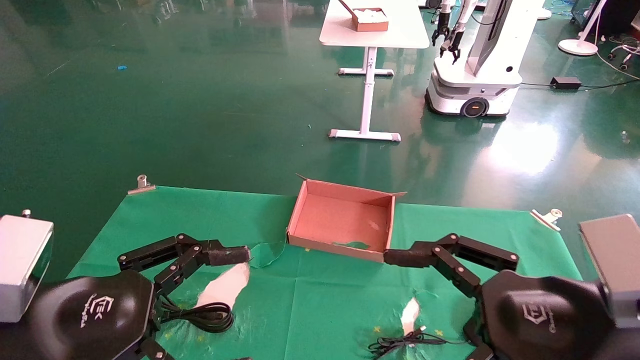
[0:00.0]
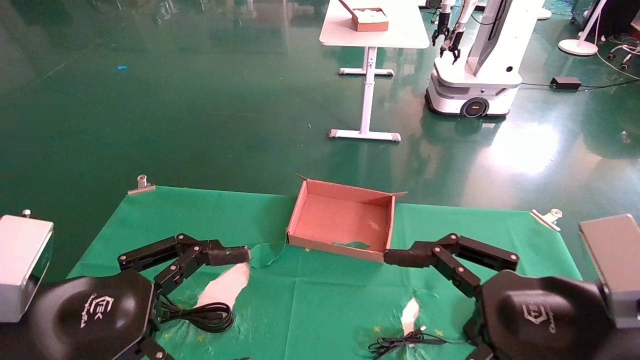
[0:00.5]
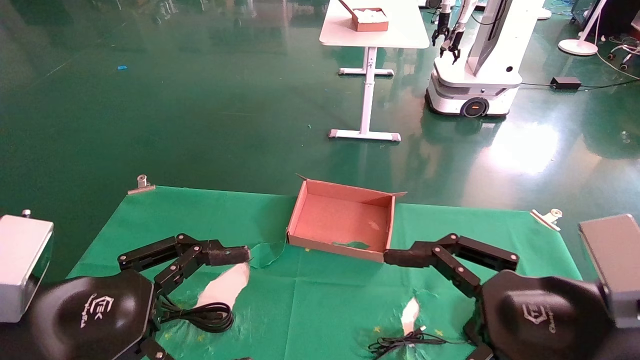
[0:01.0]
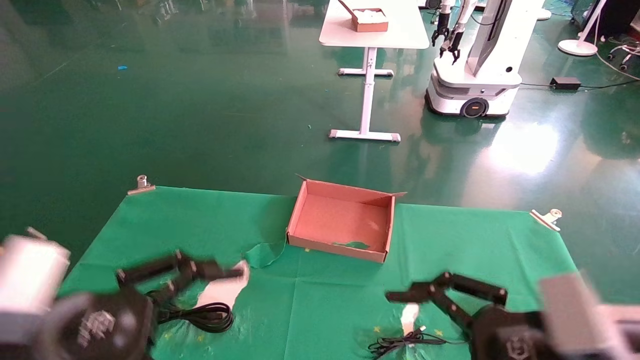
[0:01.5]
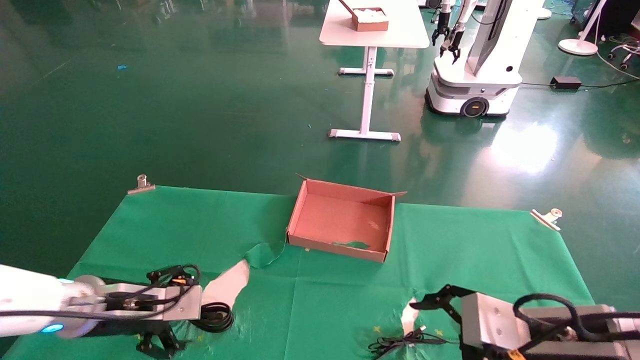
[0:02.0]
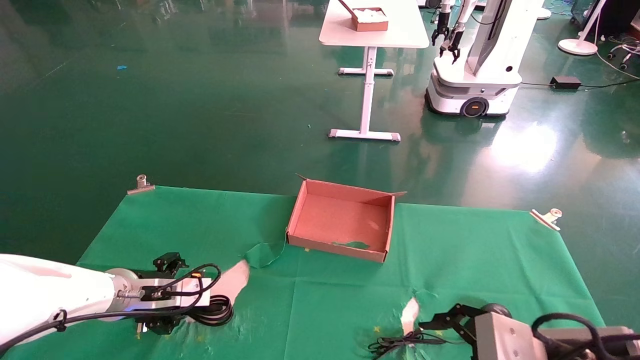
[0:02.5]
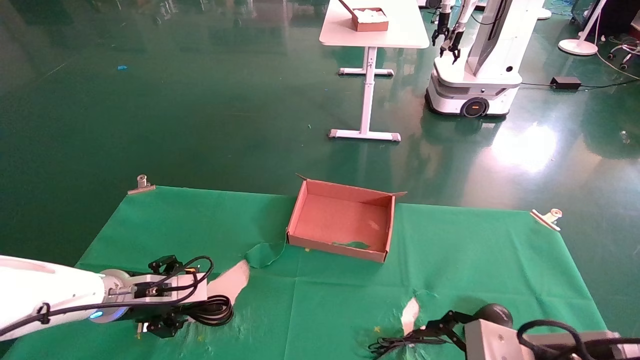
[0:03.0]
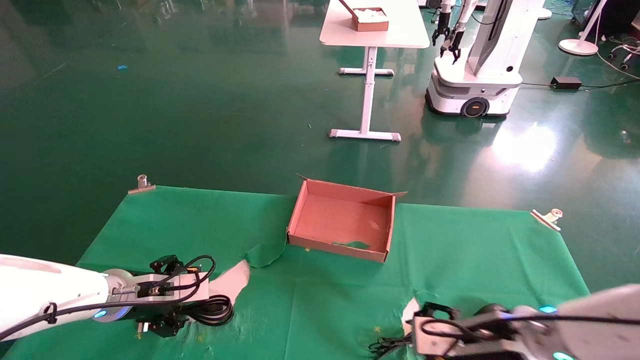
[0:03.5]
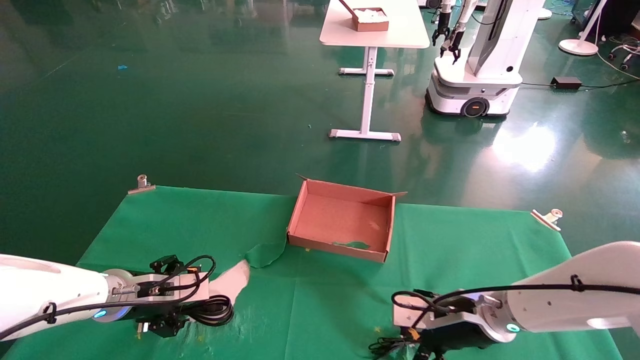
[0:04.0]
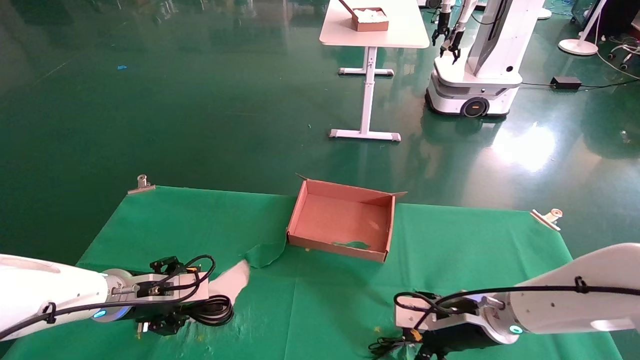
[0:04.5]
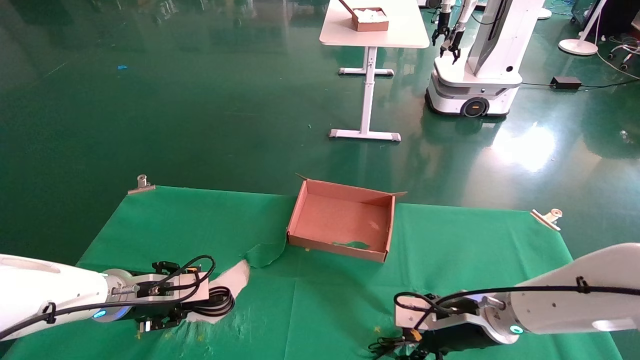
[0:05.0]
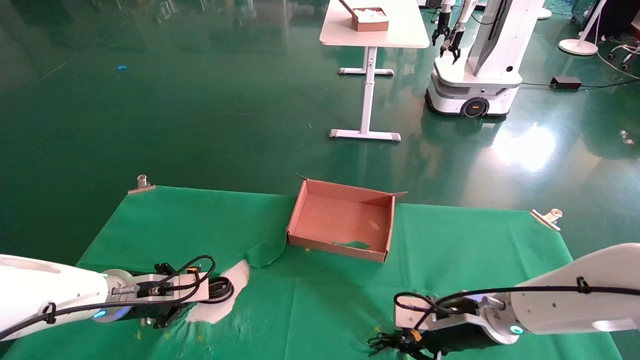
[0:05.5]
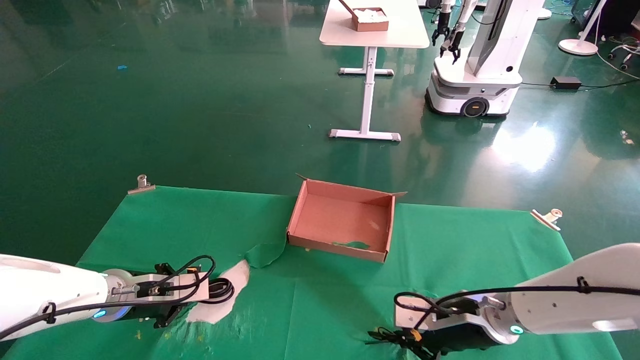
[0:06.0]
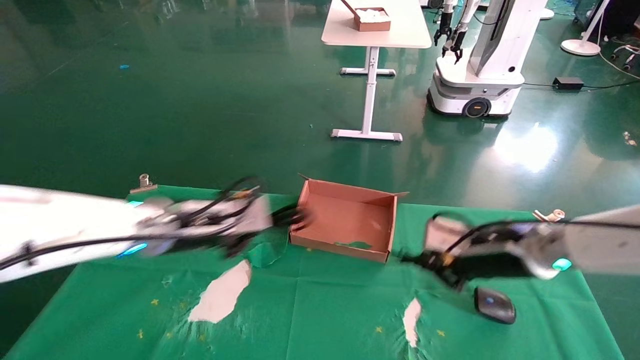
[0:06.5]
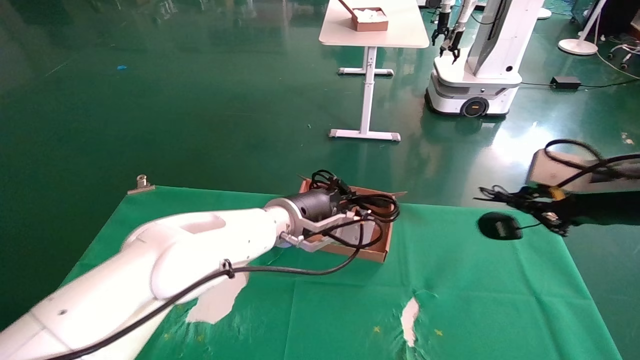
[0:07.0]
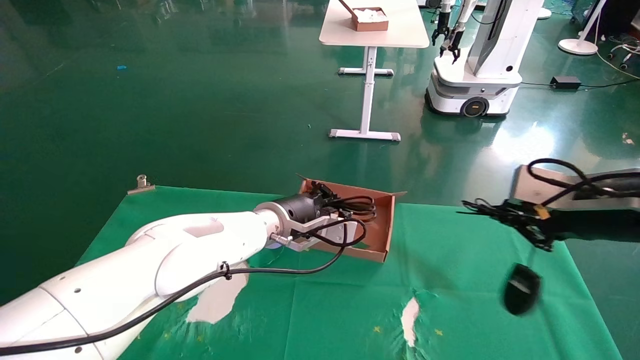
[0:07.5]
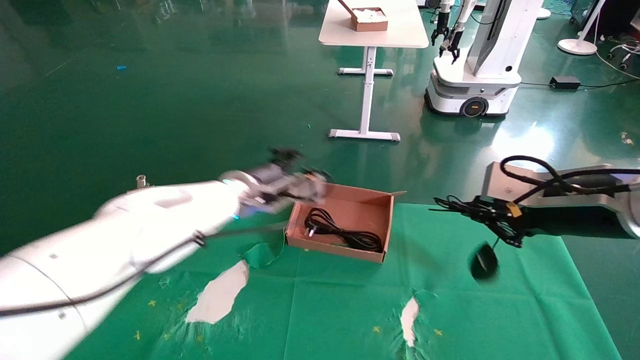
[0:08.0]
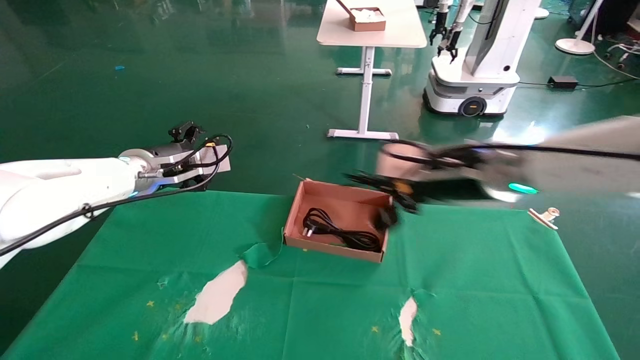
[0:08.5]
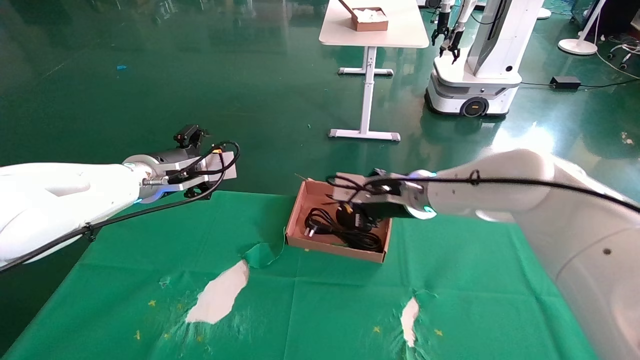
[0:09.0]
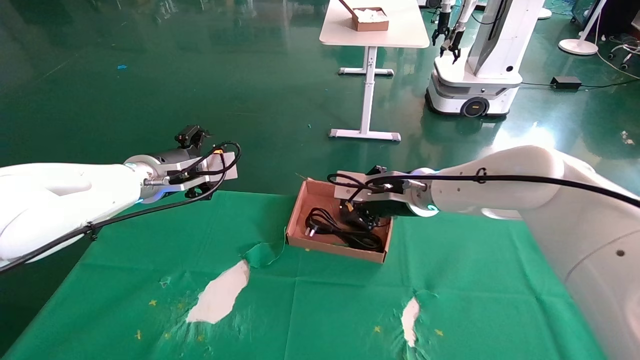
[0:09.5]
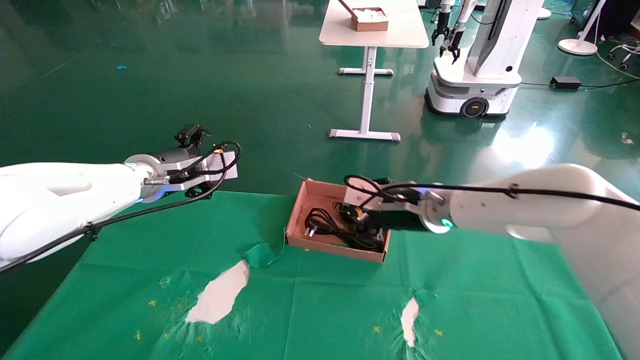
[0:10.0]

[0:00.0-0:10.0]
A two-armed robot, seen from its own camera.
Step, 0:02.0 to 0:05.5: Grab and lift both the mouse and power cord from the accessory packaging area at the same time.
0:00.0 to 0:02.0: The left gripper travels forward and downward by some 20 cm. The right gripper travels downward and forward by some 10 cm.
0:02.0 to 0:04.0: The right gripper goes about 15 cm forward and downward. Meanwhile the left gripper goes approximately 5 cm forward.
0:04.0 to 0:06.0: The left gripper closes its fingers. Meanwhile the right gripper closes.
0:06.0 to 0:08.0: The left gripper heads to the right, upward and forward, covering approximately 20 cm, and opens; the right gripper shifts some 20 cm upward and to the right.
0:08.0 to 0:10.0: The right gripper goes roughly 20 cm to the left and forward, and opens; the left gripper is displaced to the left by some 10 cm, and opens up.

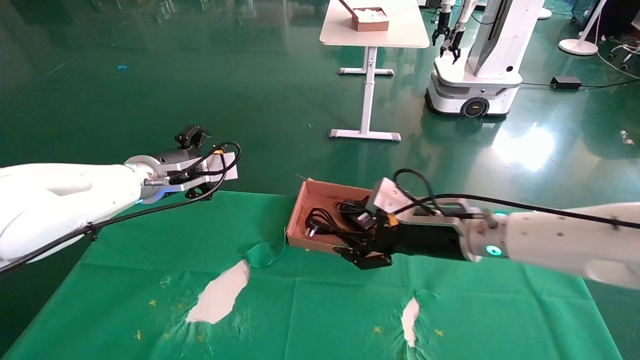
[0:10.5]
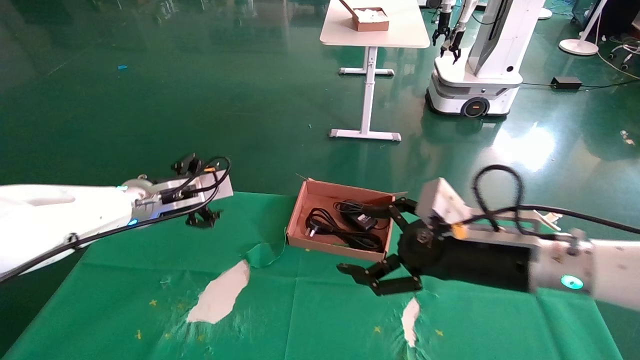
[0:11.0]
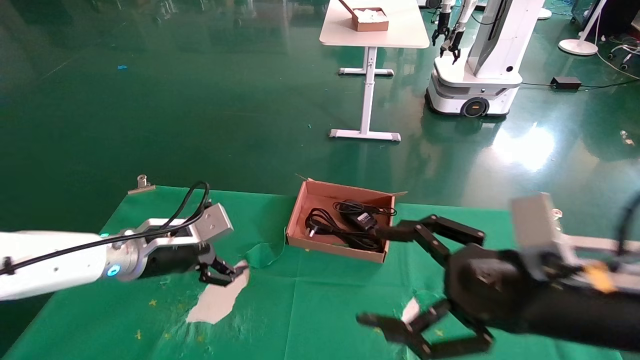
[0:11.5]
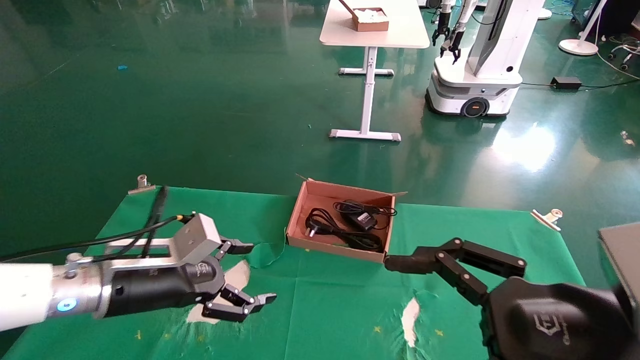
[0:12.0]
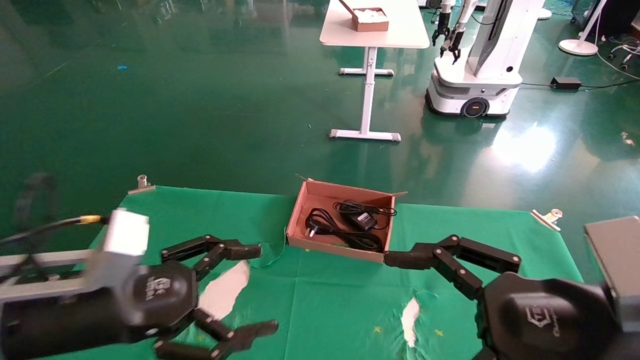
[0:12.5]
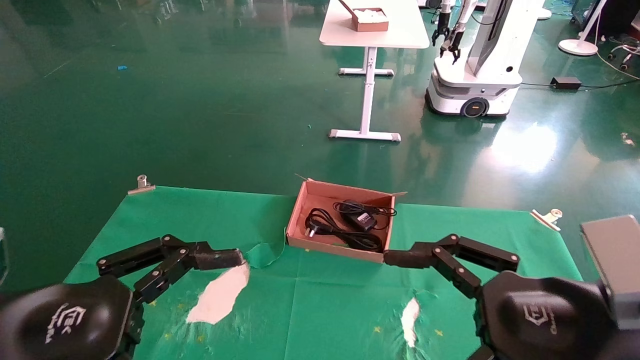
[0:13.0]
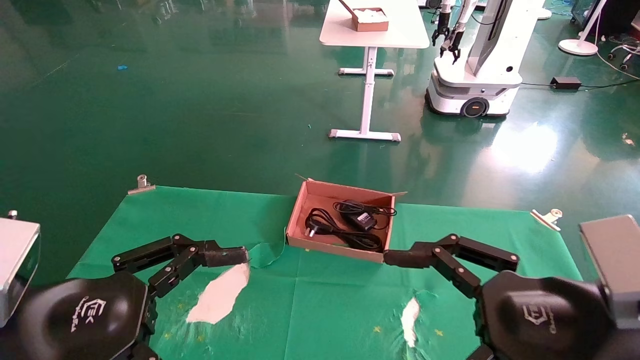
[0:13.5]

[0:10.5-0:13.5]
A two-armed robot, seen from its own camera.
0:10.5 to 0:12.0: The right gripper moves backward, some 20 cm. Meanwhile the left gripper moves backward and downward, roughly 15 cm.
0:12.0 to 0:13.5: The left gripper heads backward, covering about 15 cm.

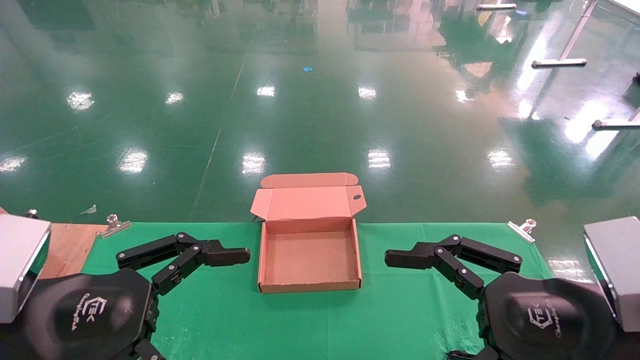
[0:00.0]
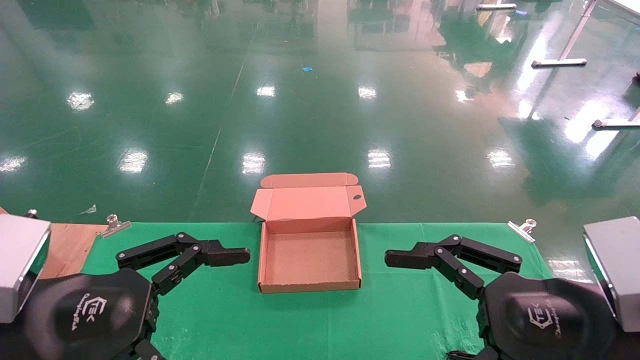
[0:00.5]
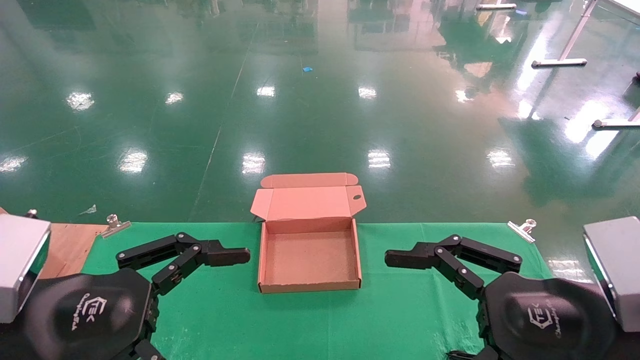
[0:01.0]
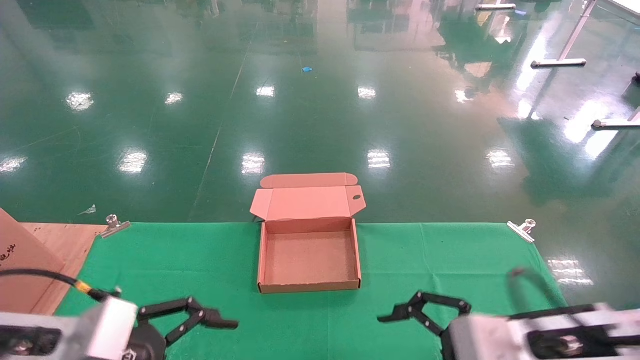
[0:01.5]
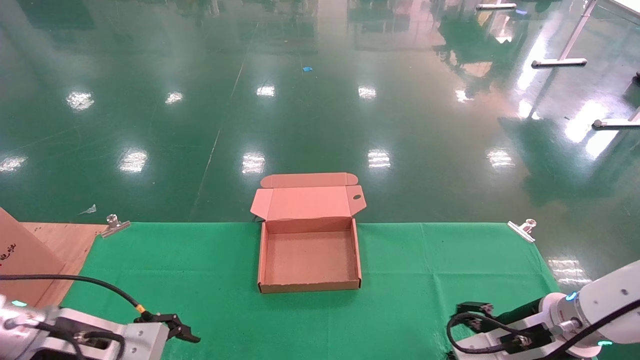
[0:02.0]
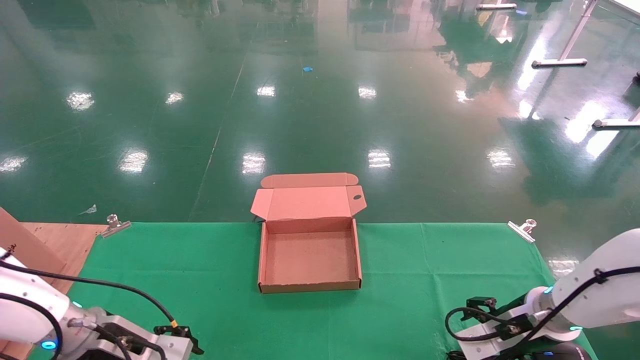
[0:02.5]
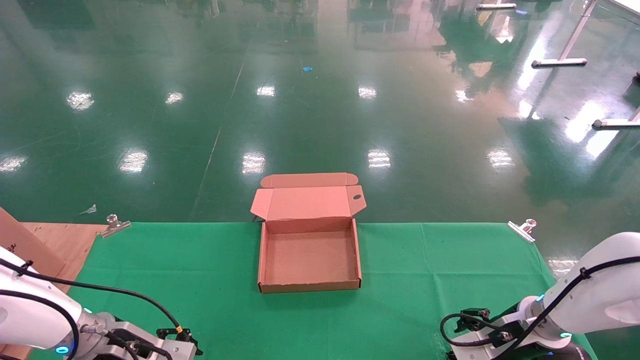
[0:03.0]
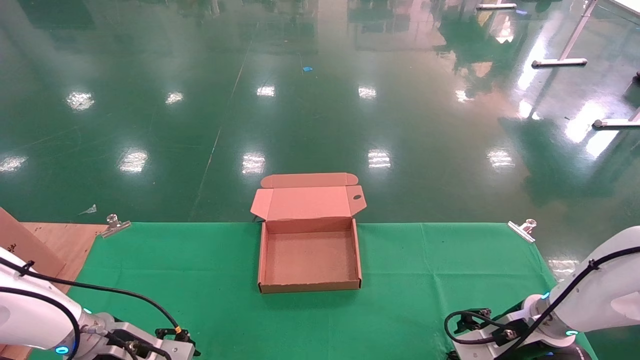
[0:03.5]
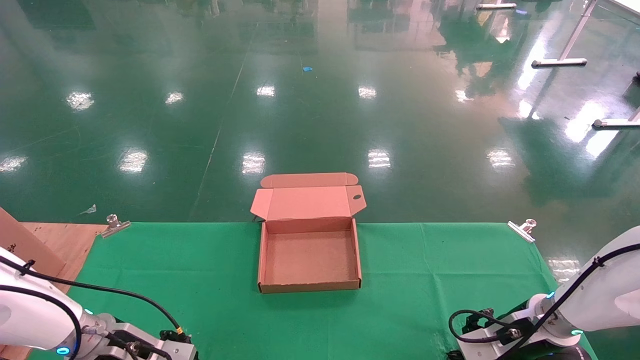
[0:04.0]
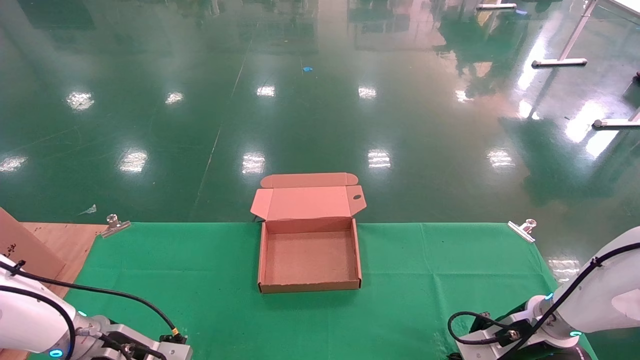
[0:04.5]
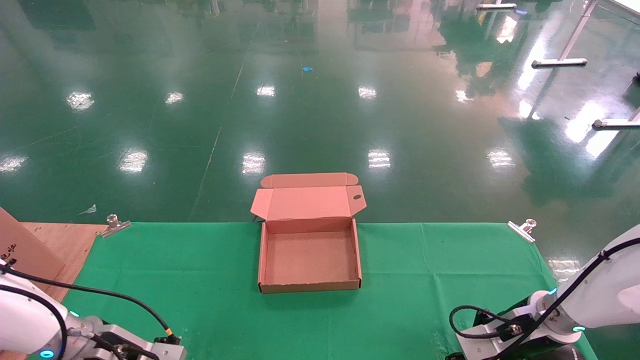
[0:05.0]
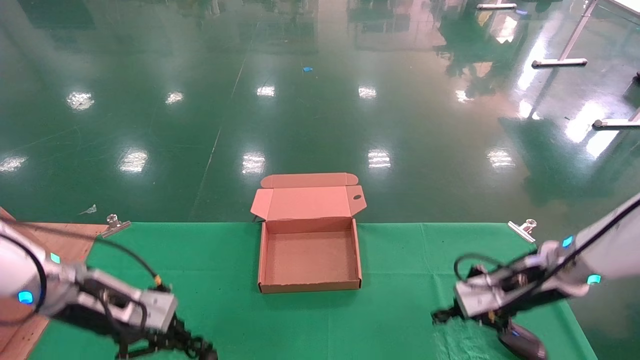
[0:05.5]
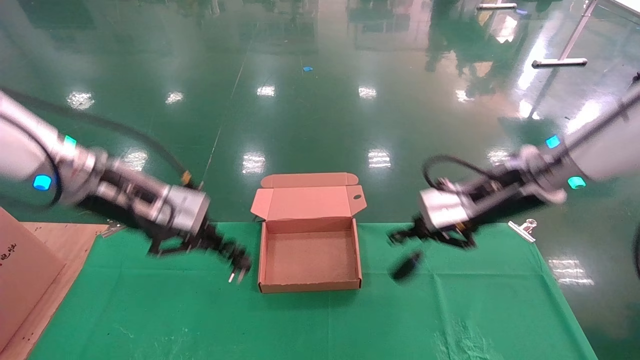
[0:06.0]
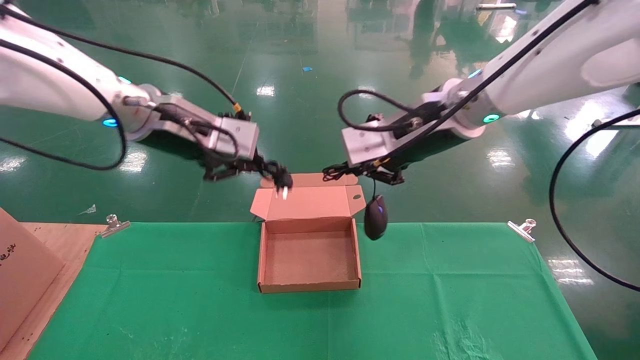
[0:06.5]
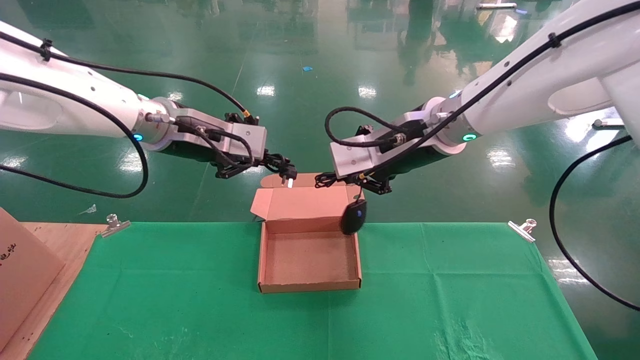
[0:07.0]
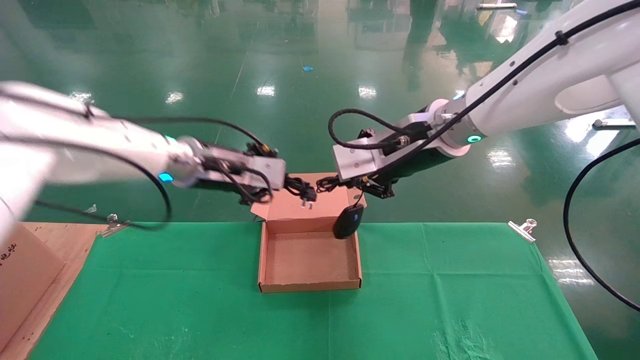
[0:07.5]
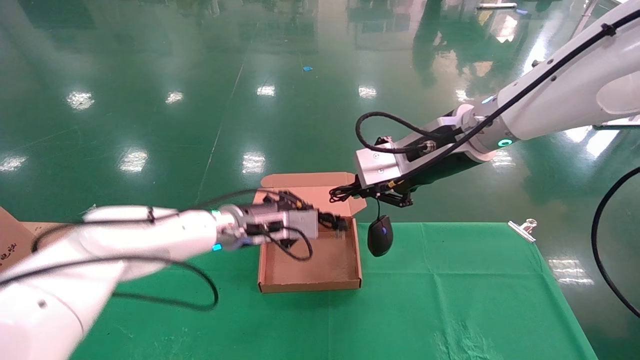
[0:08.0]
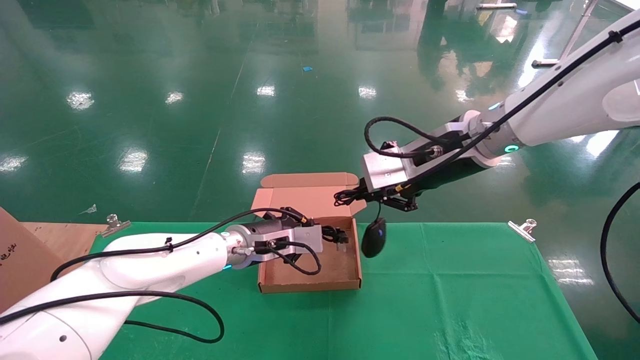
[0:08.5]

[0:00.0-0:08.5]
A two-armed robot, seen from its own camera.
Step, 0:02.0 to 0:05.5: Grab and lift both the mouse and power cord from the accessory packaging area at the same time.
0:00.0 to 0:02.0: The left gripper heads forward, downward and to the left, covering roughly 20 cm. Meanwhile the right gripper goes roughly 20 cm forward and downward.
0:02.0 to 0:04.0: The right gripper moves forward, roughly 5 cm, while the left gripper is displaced downward and forward by approximately 10 cm.
0:04.0 to 0:06.5: The right gripper heads upward and to the left, covering approximately 35 cm, and closes up, while the left gripper shifts about 30 cm upward, and closes.
0:06.5 to 0:08.5: The left gripper travels downward and to the right by roughly 20 cm.
